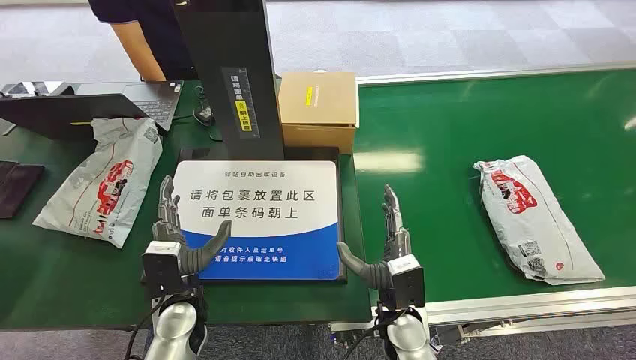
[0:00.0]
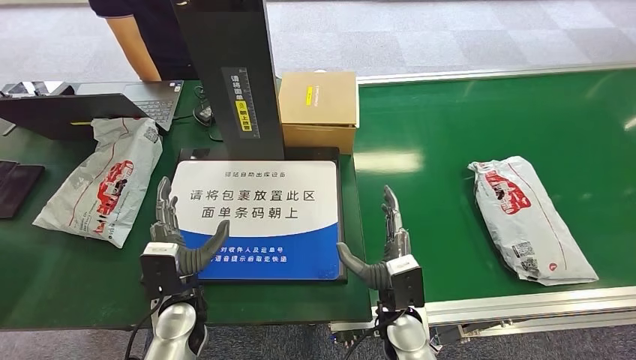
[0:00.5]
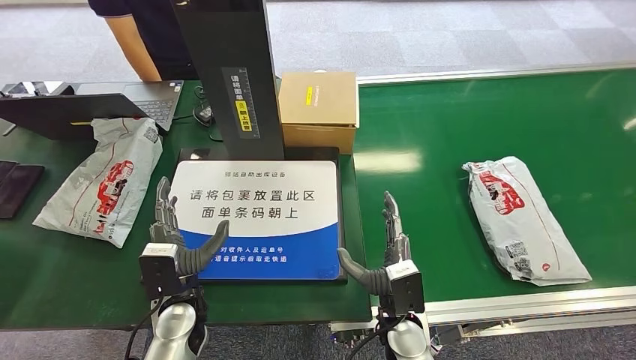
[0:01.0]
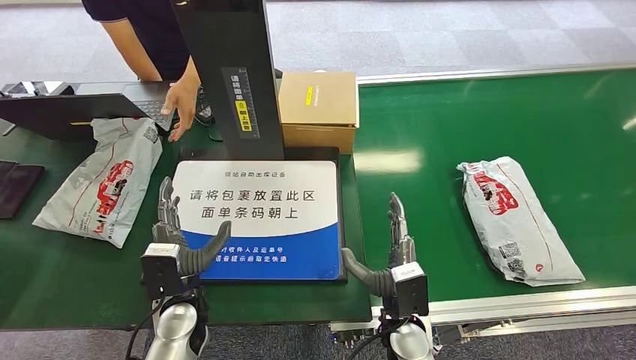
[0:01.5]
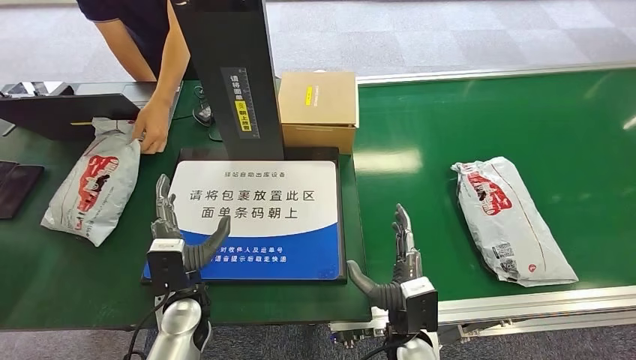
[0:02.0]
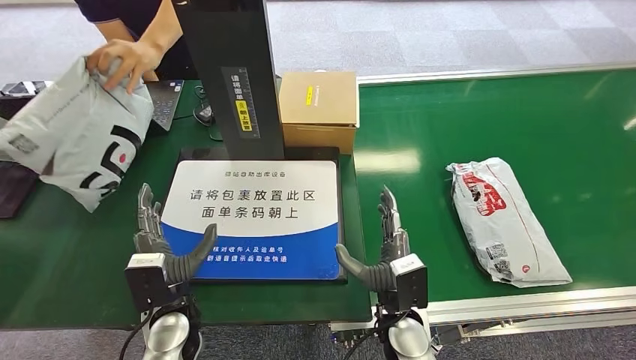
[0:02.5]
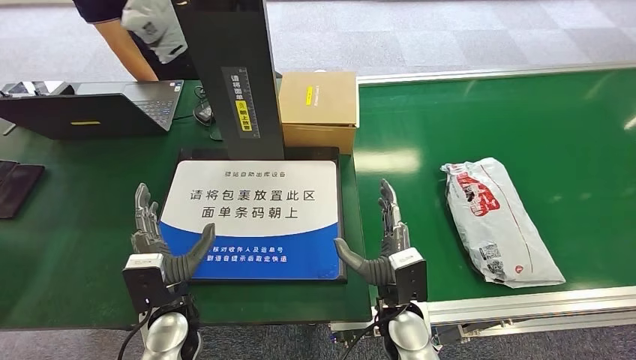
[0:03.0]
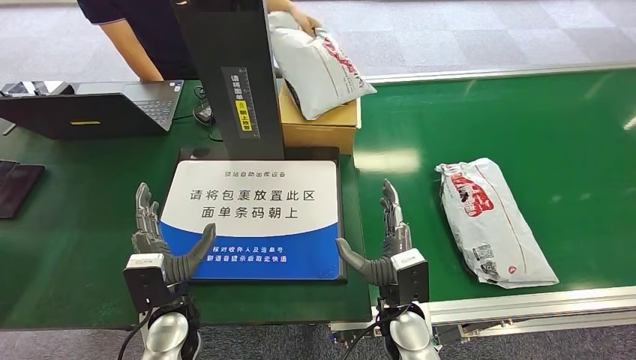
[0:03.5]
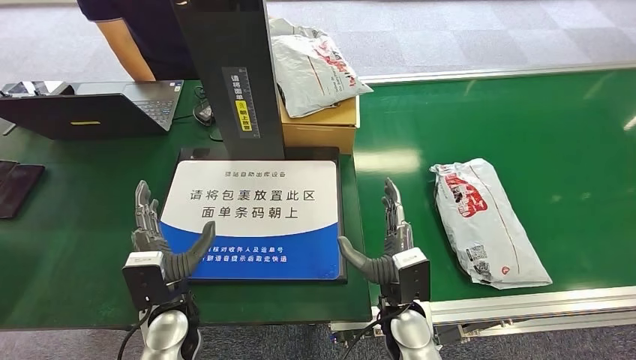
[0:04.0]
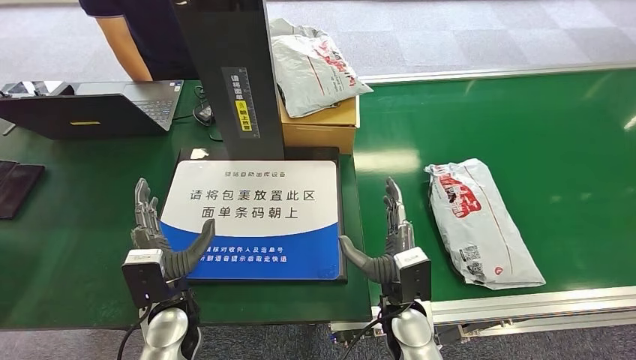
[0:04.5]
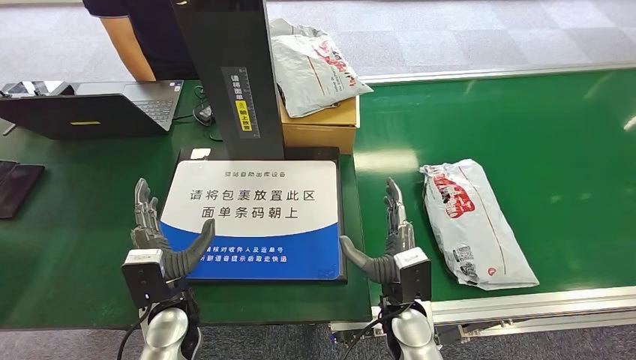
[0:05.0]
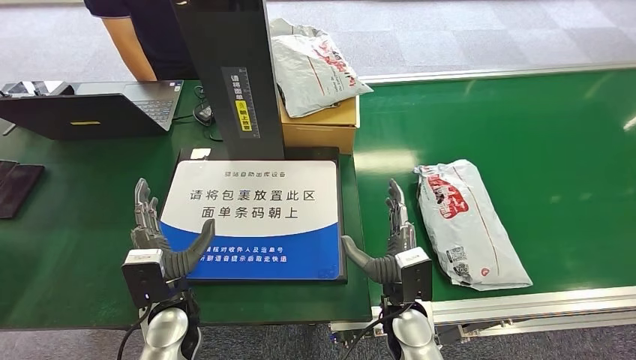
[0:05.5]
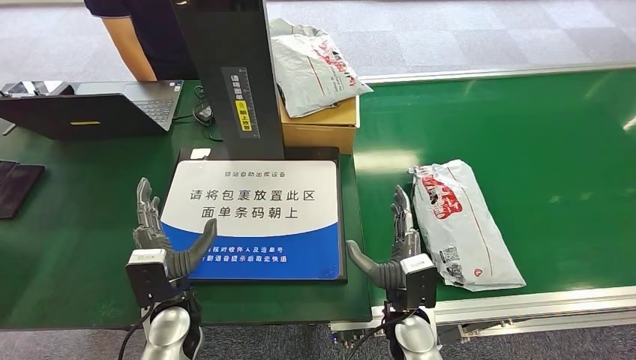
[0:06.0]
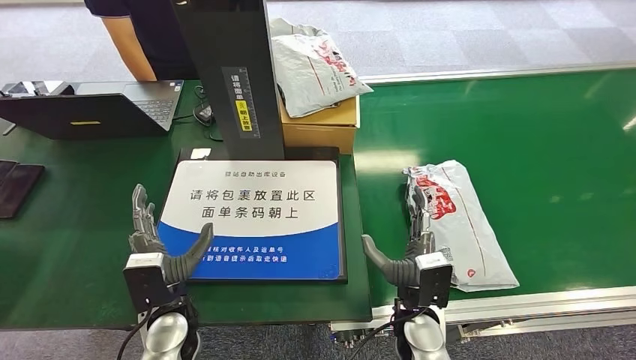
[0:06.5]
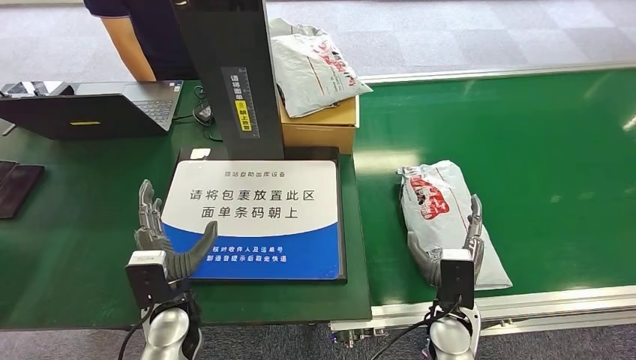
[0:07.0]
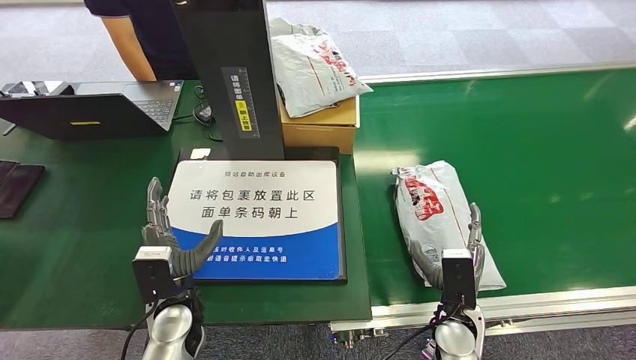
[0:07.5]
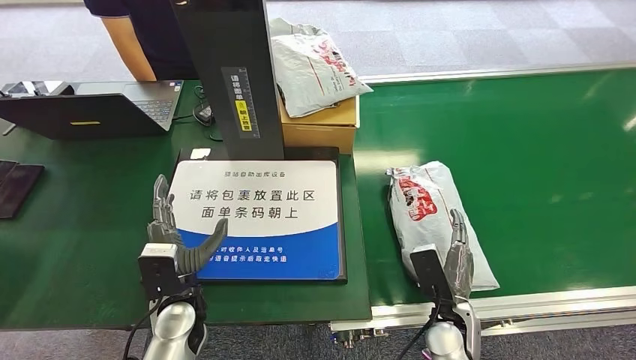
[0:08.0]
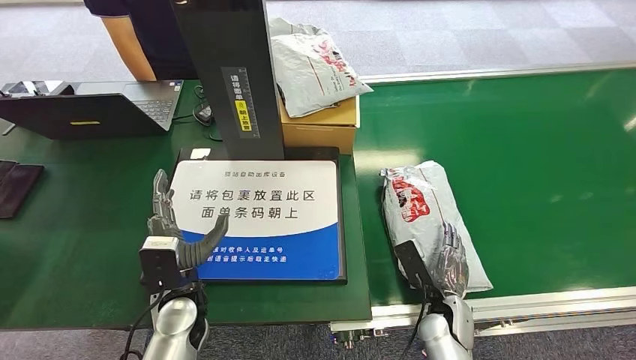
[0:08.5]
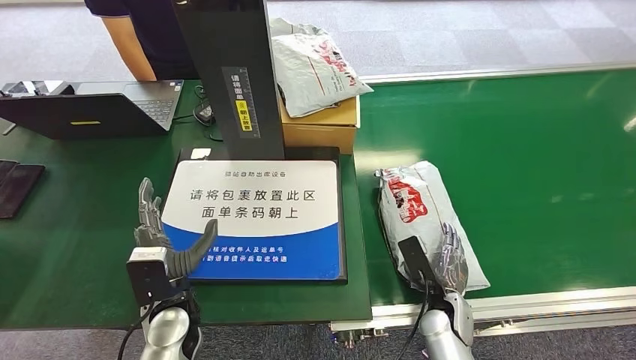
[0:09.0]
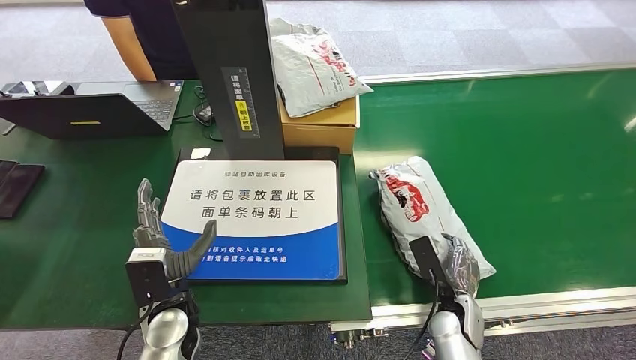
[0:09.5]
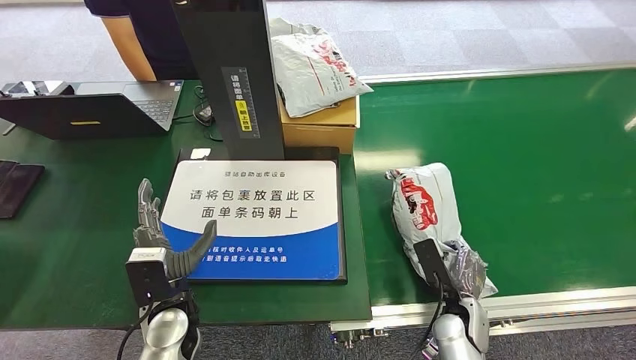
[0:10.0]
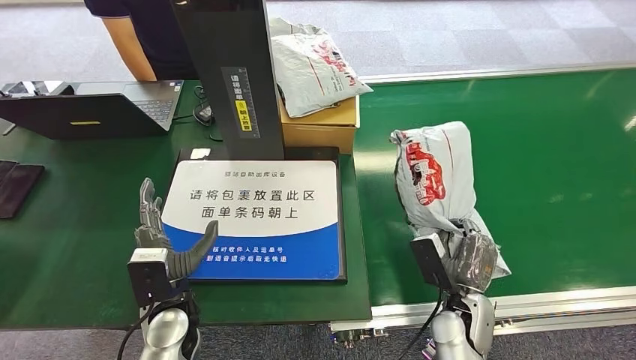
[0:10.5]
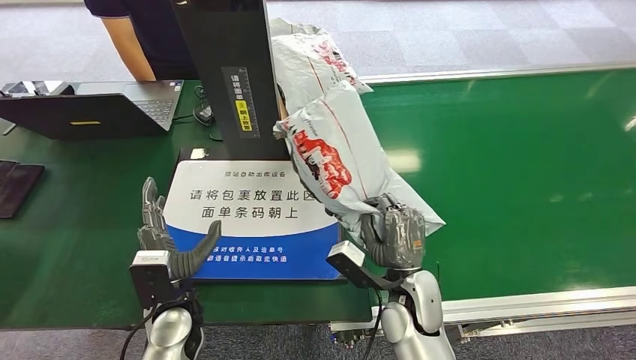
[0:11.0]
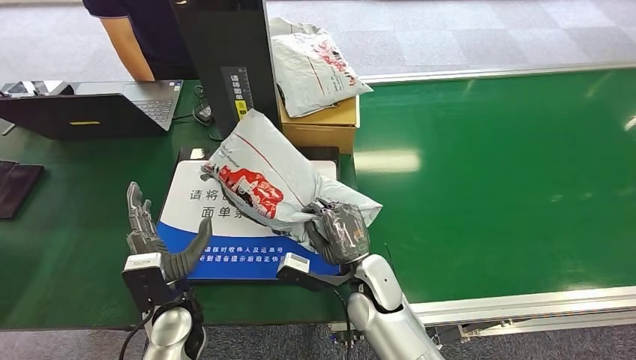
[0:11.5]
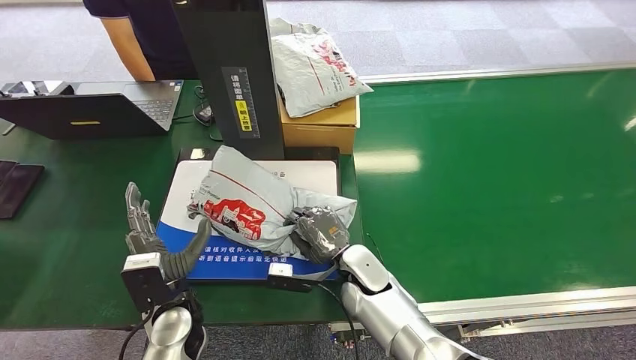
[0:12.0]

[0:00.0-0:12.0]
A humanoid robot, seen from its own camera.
Step, 0:00.0 to 0:10.5: Pick up the package from the conveyor belt.
0:02.0 to 0:06.0: The hands move only a little.
0:06.0 to 0:08.0: The right hand shifts some 10 cm to the right.
0:08.0 to 0:10.0: The right hand ends up some 5 cm from where it was.
0:10.0 to 0:12.0: The right hand is displaced to the left, forward and upward by some 20 cm.

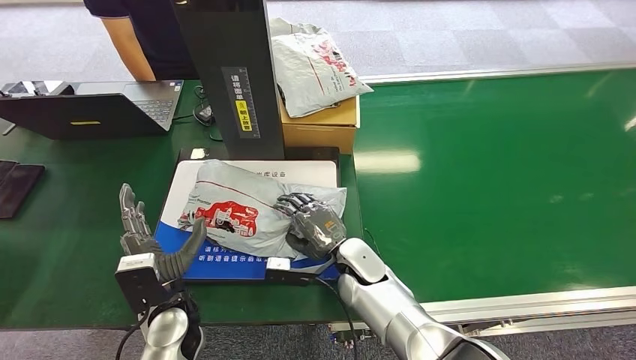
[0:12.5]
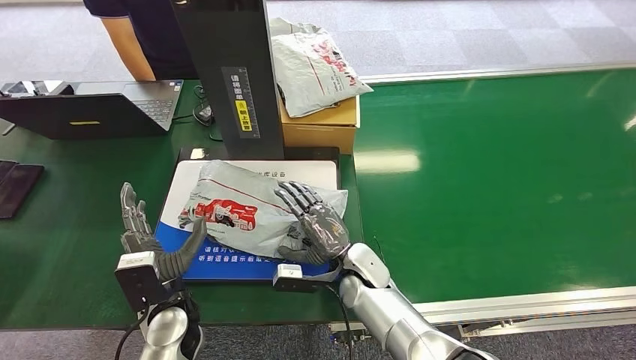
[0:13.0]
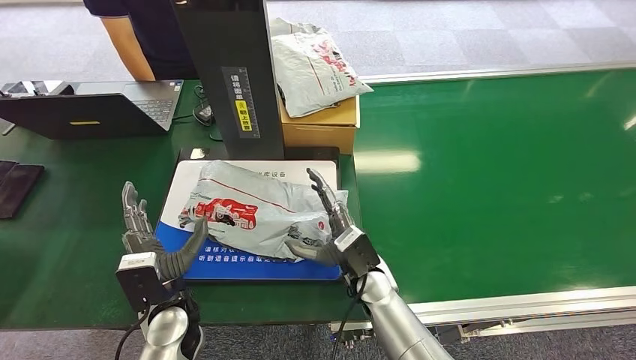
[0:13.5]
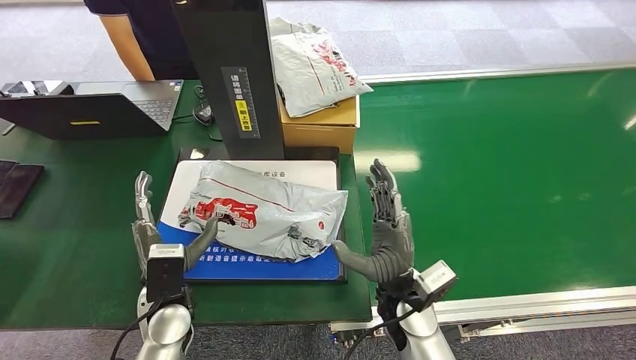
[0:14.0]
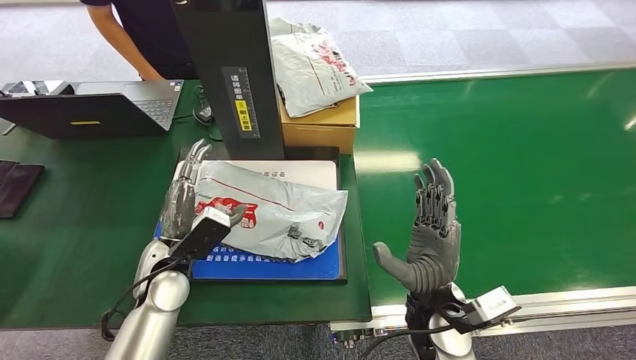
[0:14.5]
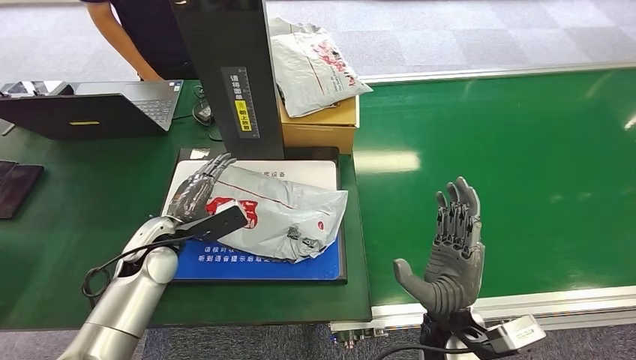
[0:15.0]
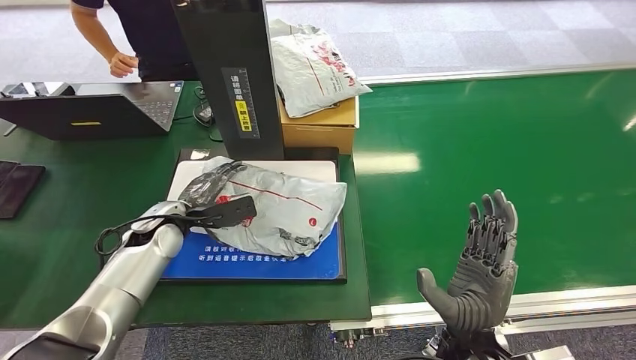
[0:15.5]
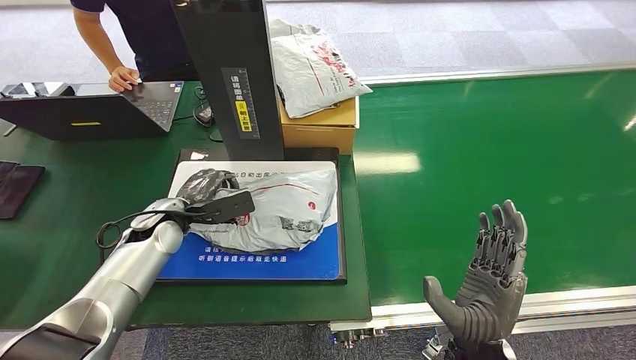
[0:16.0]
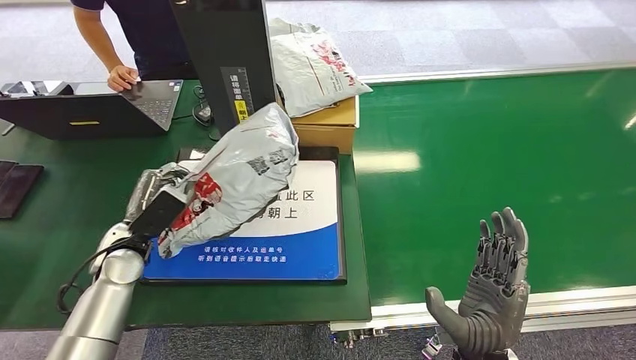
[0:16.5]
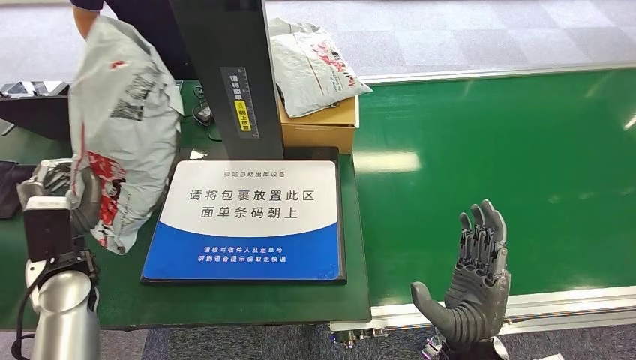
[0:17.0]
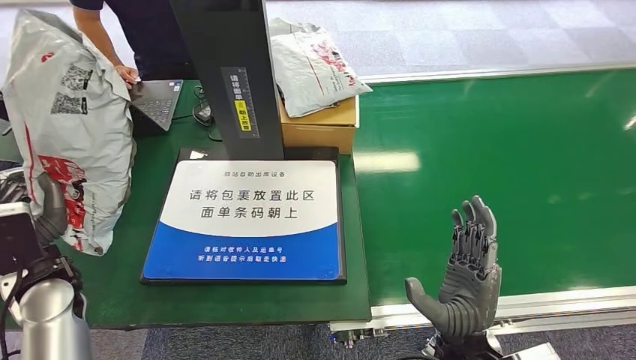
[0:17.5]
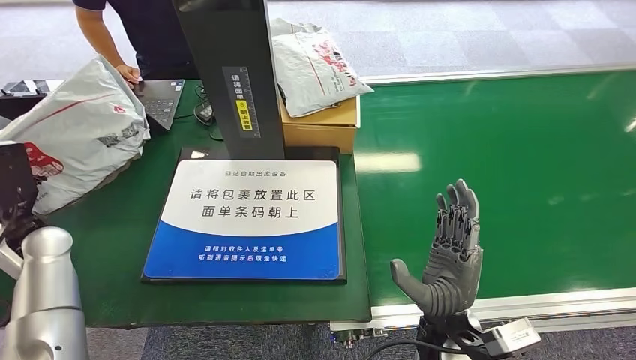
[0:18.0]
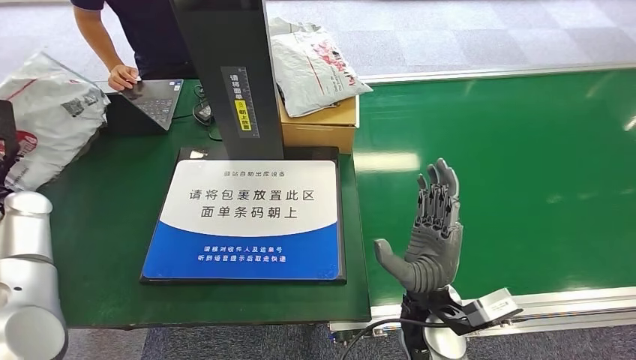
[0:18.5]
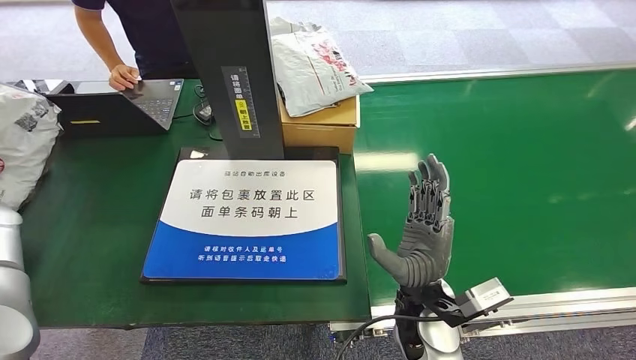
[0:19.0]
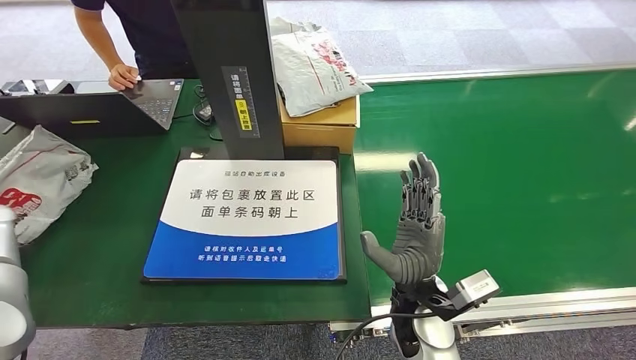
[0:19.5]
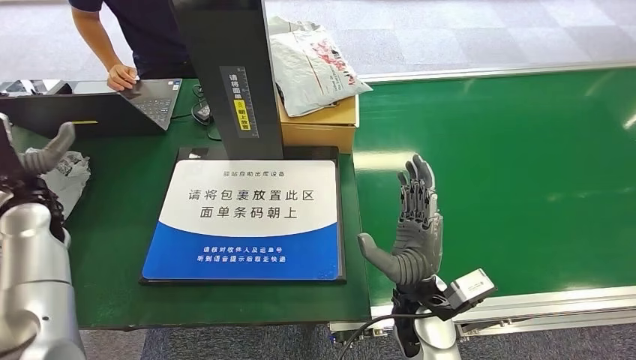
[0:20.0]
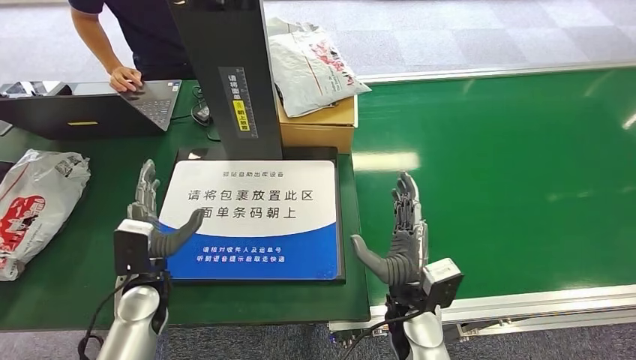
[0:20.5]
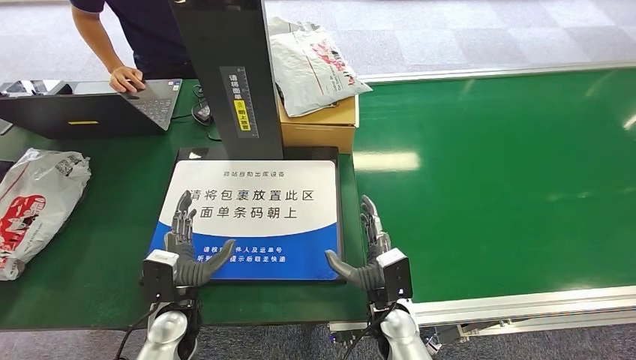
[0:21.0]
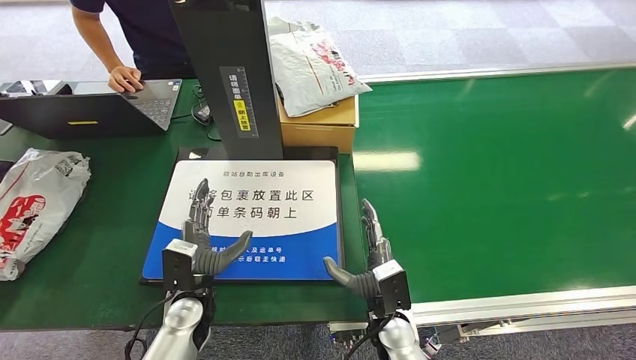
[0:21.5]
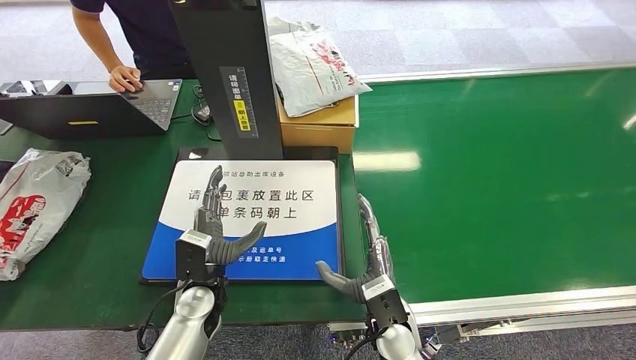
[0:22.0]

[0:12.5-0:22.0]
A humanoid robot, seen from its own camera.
Step, 0:15.0 to 0:16.5: Pick up the package from the inbound machine.
Step, 0:17.0 to 0:22.0: Place the package into the parcel locker.
0:12.5 to 0:14.5: The right hand goes some 15 cm backward, to the right and upward; the left hand moves forward, some 5 cm.
0:20.0 to 0:22.0: The right hand travels downward by some 5 cm, while the left hand is displaced to the right and downward by approximately 30 cm.
